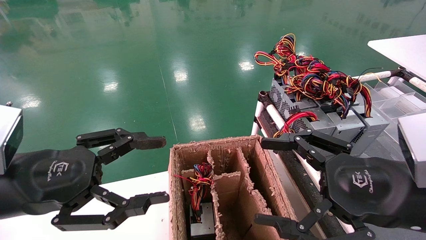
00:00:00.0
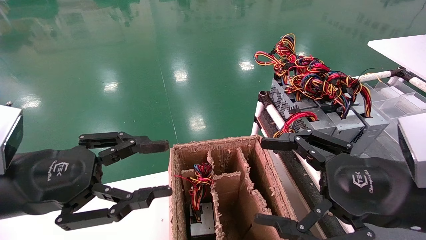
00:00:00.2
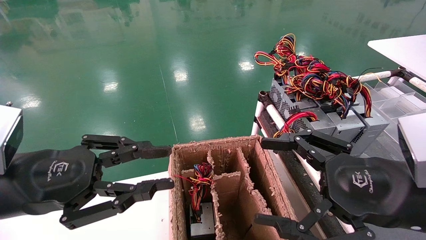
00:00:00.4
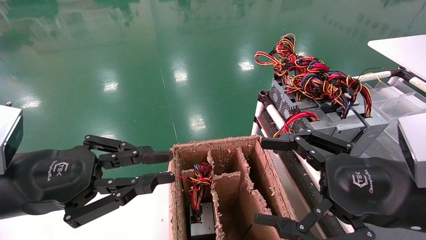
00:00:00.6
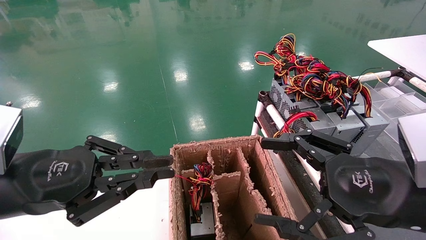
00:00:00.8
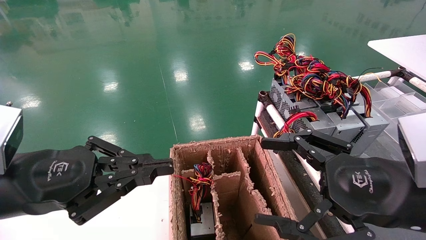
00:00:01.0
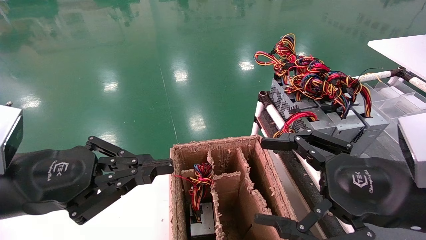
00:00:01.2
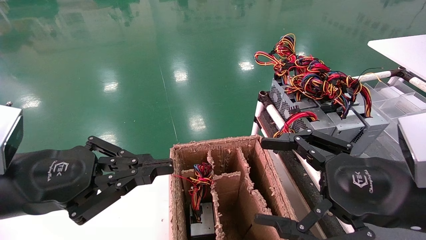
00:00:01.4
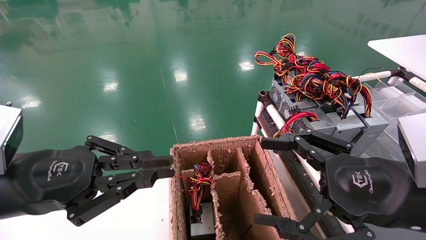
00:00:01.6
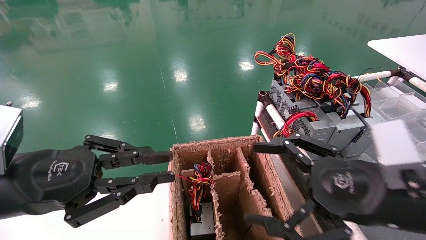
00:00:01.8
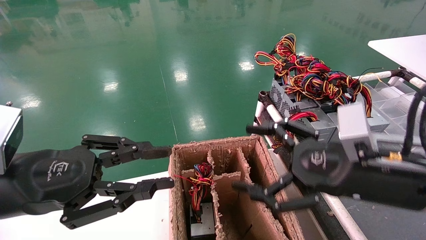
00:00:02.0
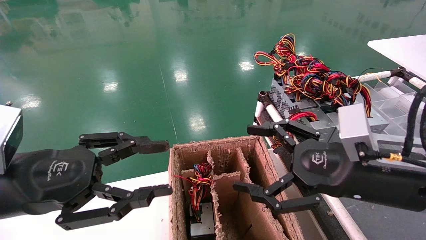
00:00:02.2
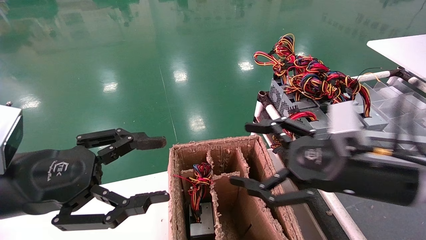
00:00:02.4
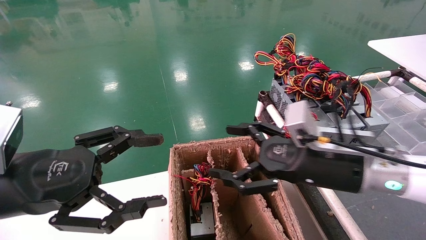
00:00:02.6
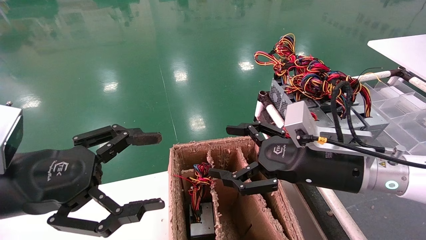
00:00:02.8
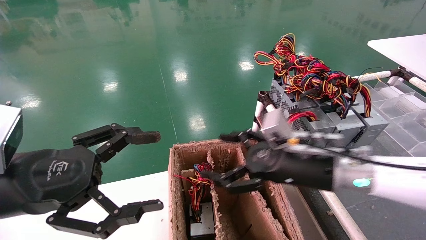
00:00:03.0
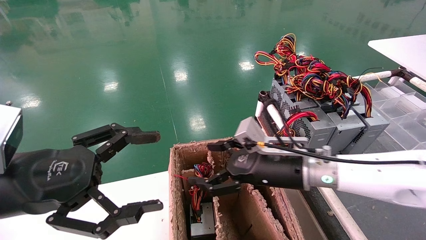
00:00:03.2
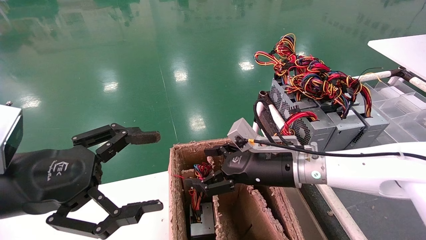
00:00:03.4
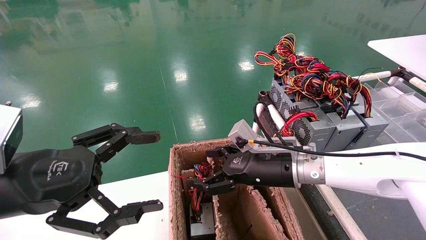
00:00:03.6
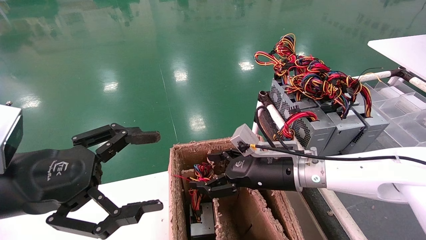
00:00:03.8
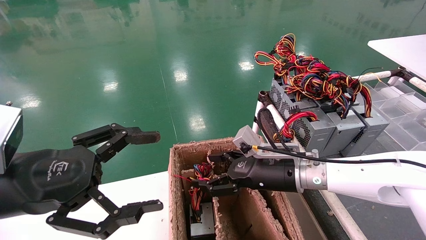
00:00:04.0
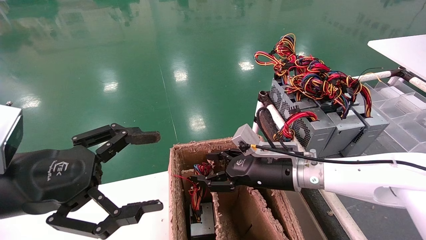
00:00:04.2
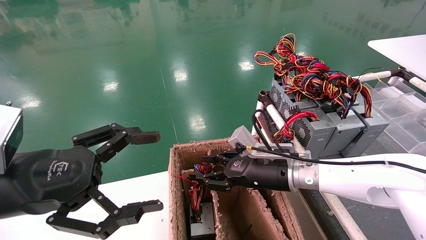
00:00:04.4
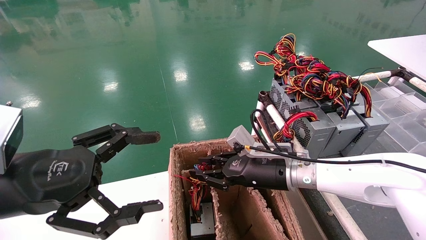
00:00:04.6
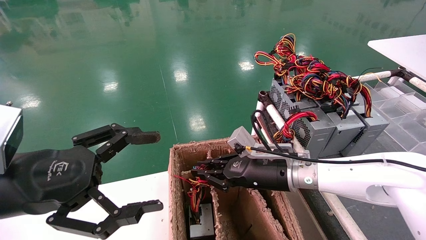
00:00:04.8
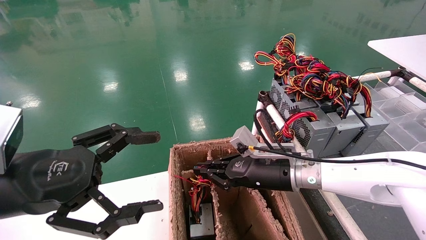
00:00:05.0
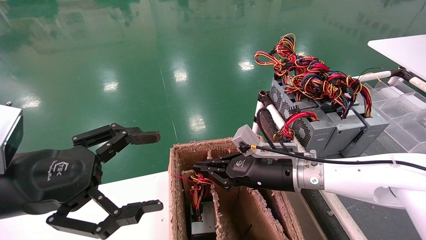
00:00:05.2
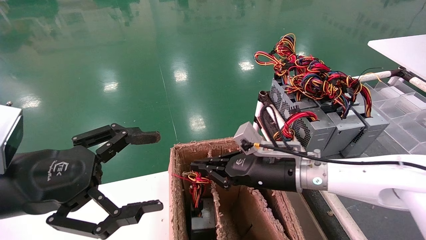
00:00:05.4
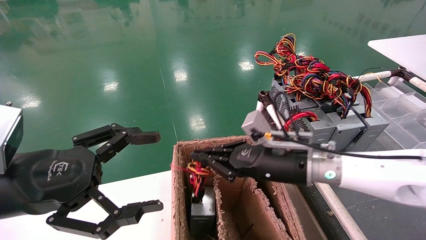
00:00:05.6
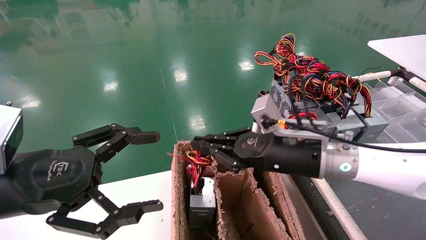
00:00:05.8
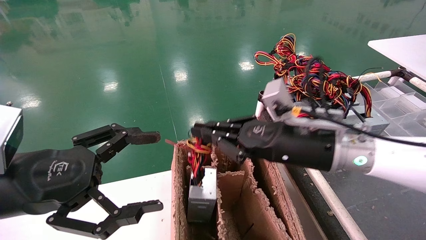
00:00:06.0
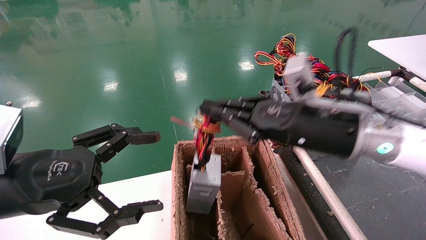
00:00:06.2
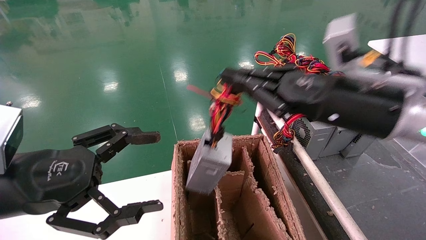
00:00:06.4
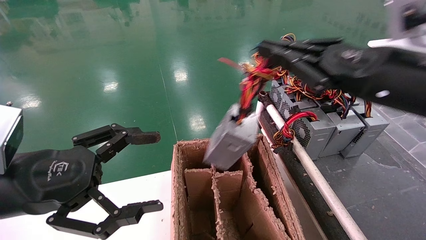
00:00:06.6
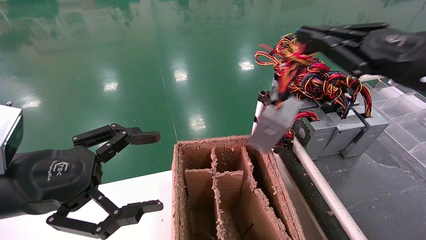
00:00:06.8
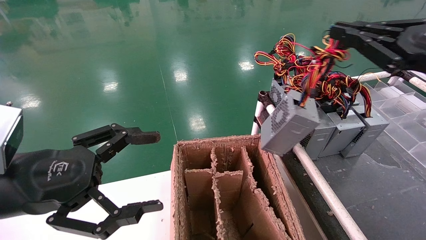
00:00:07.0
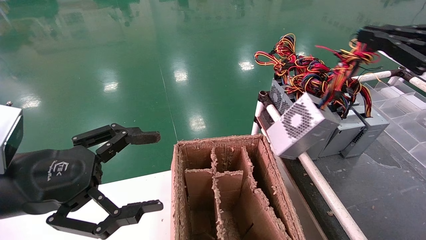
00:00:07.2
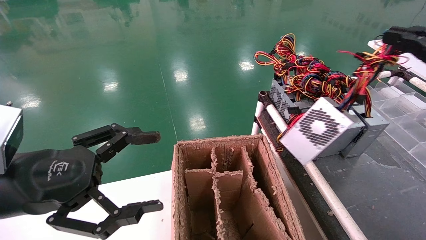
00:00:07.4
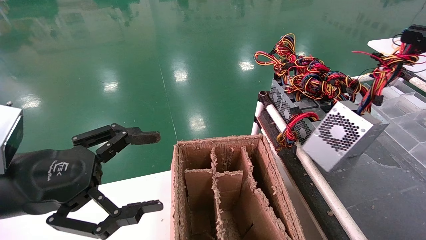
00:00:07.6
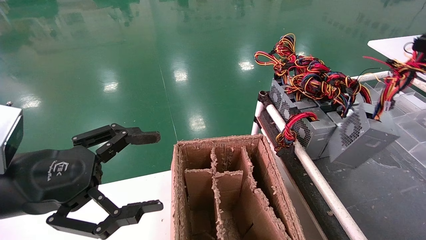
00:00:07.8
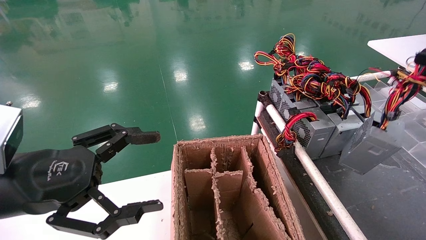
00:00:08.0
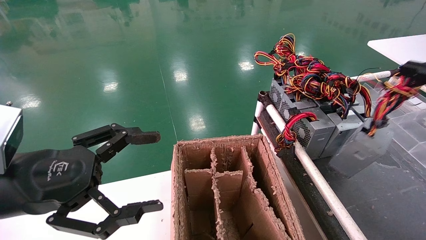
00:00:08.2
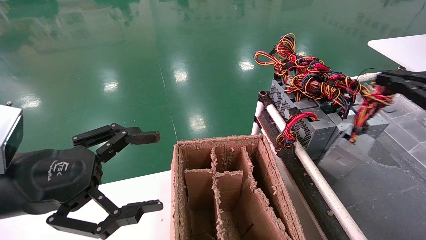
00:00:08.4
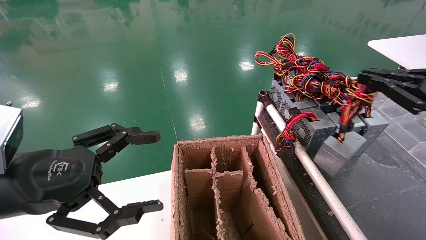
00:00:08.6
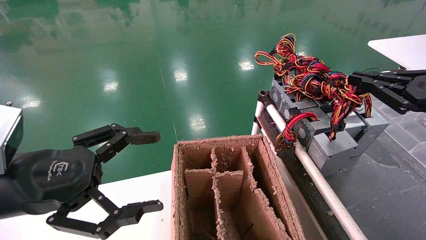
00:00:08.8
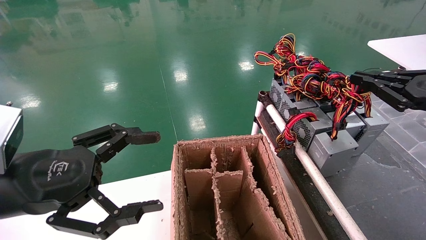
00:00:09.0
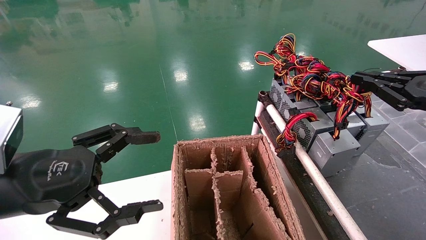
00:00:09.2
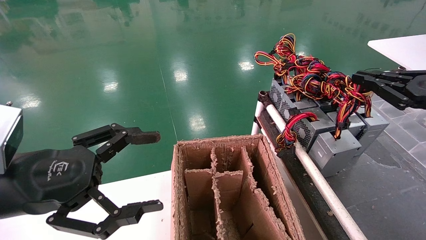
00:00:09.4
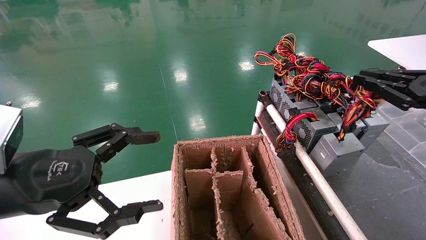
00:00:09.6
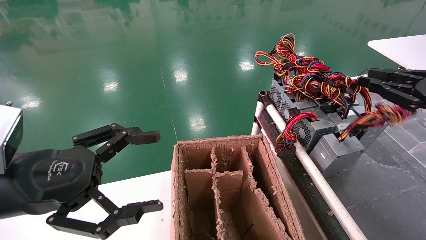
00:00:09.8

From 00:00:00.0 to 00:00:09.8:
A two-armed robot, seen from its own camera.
Step, from 00:00:01.2 to 00:00:05.0: Grab and lift the power supply from the large box.
Step, from 00:00:05.2 to 00:00:09.6: Place the power supply on the operating table.
From 00:00:00.0 to 00:00:01.4: The left gripper closes its fingers.
From 00:00:01.4 to 00:00:02.8: The right gripper is displaced forward and to the left by roughly 15 cm. The left gripper opens its fingers.
From 00:00:02.8 to 00:00:04.2: The right gripper shifts approximately 10 cm forward, downward and to the left.
From 00:00:04.2 to 00:00:05.6: The right gripper changes place by roughly 5 cm, and closes its fingers.
From 00:00:05.6 to 00:00:07.0: The right gripper moves to the right, upward and backward, about 30 cm.
From 00:00:07.0 to 00:00:08.4: The right gripper travels to the right by some 10 cm.
From 00:00:08.4 to 00:00:09.8: The grippers stay close to where they were, moving slightly.

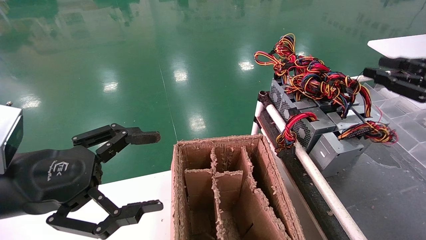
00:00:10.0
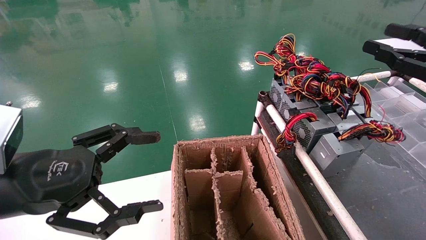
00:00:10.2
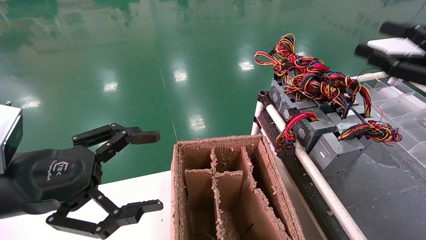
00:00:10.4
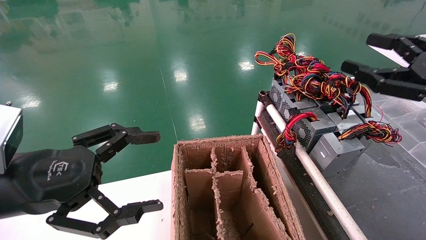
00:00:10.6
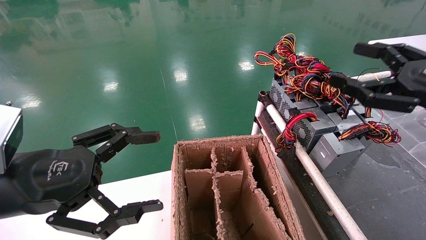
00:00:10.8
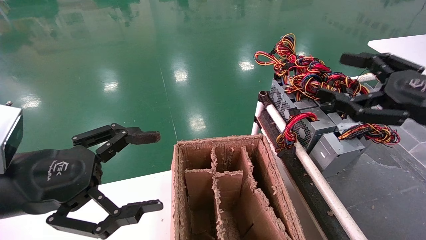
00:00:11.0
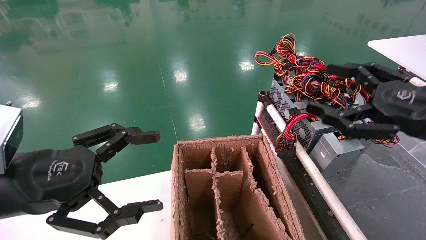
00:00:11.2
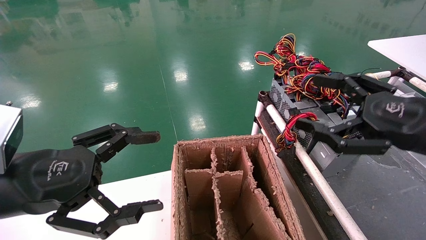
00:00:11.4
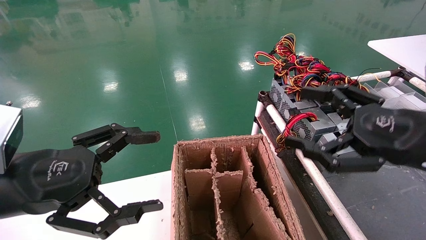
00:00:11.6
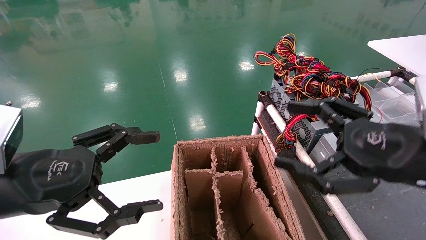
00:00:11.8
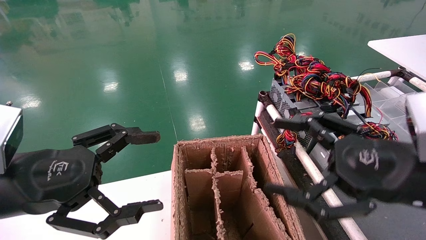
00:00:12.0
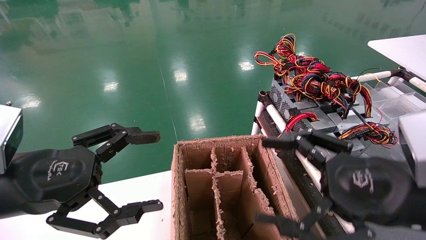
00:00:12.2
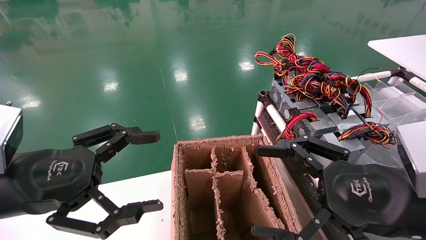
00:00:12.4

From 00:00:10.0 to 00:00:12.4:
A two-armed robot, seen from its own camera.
From 00:00:10.0 to 00:00:11.2: The right gripper goes some 10 cm to the left, and opens up.
From 00:00:11.2 to 00:00:12.4: The right gripper travels to the left, backward and downward by some 10 cm.
